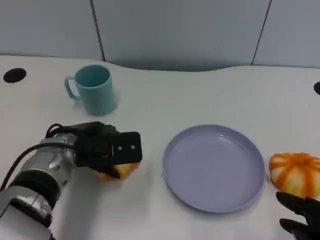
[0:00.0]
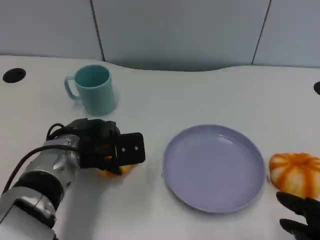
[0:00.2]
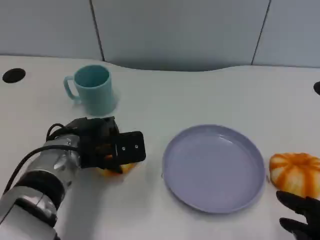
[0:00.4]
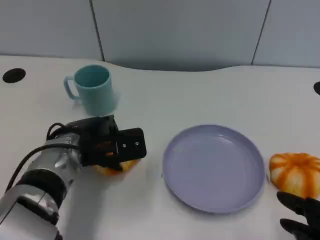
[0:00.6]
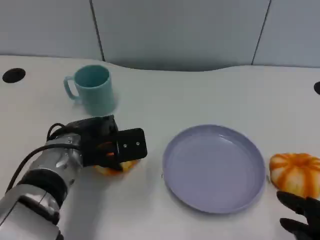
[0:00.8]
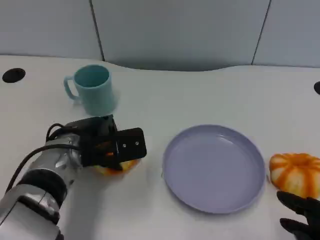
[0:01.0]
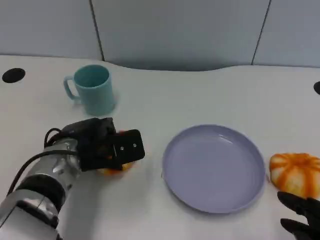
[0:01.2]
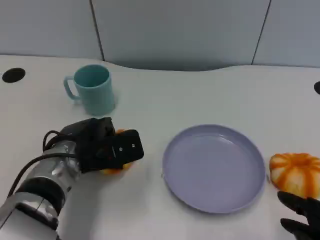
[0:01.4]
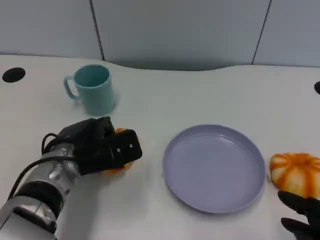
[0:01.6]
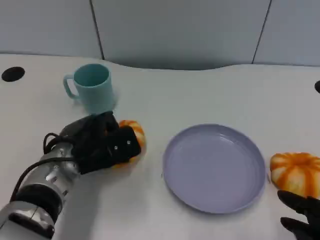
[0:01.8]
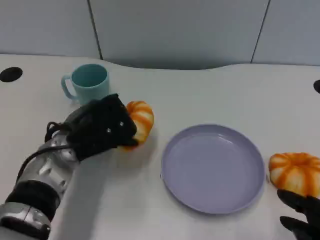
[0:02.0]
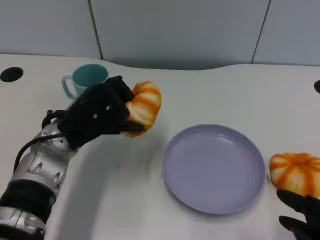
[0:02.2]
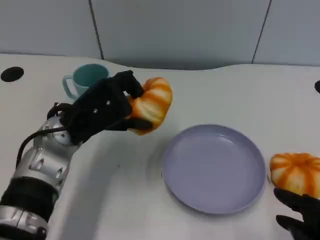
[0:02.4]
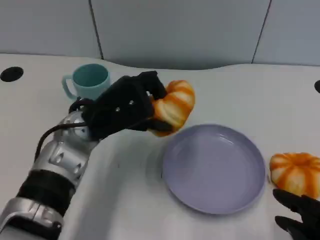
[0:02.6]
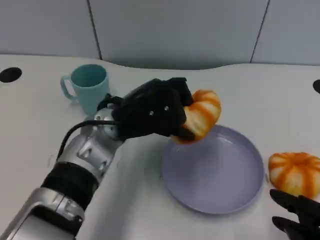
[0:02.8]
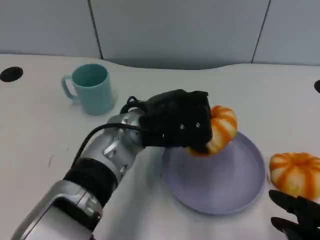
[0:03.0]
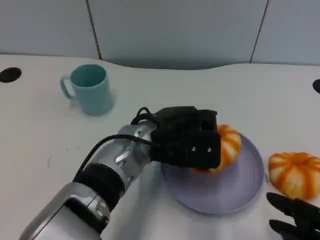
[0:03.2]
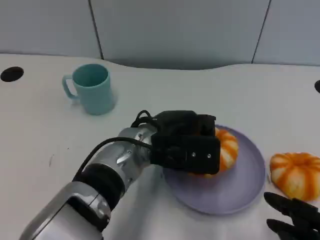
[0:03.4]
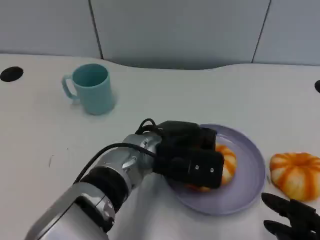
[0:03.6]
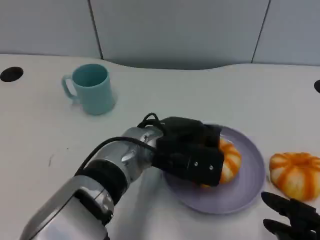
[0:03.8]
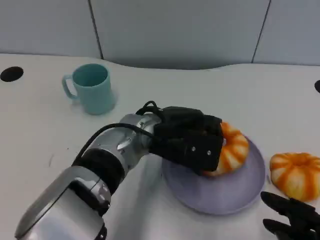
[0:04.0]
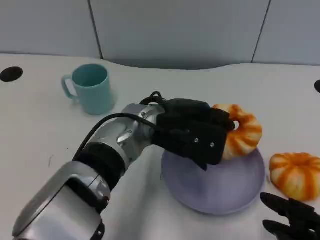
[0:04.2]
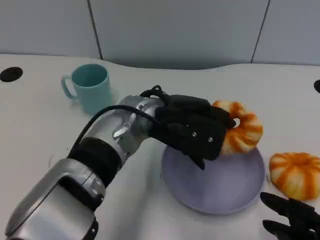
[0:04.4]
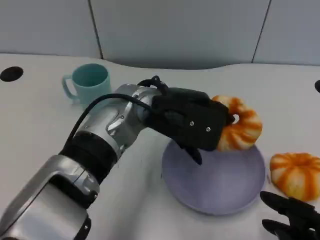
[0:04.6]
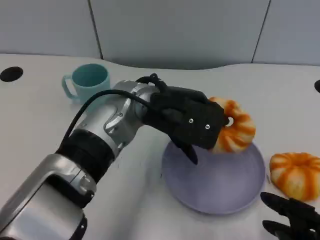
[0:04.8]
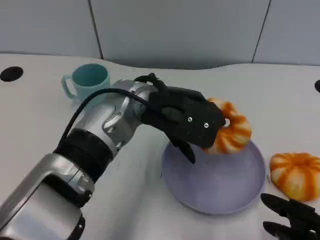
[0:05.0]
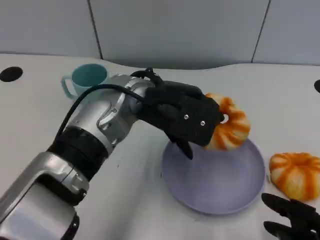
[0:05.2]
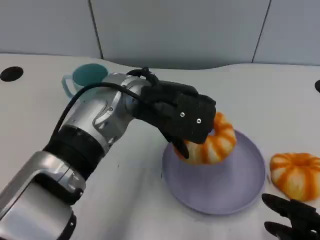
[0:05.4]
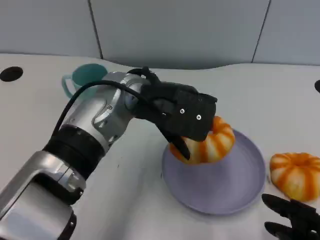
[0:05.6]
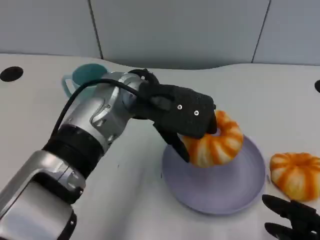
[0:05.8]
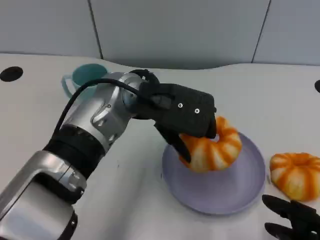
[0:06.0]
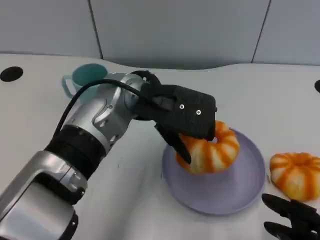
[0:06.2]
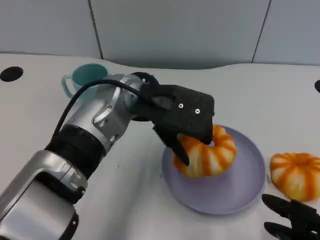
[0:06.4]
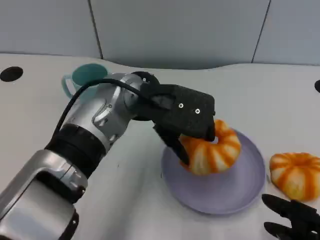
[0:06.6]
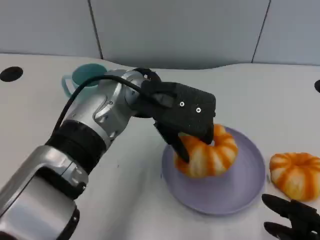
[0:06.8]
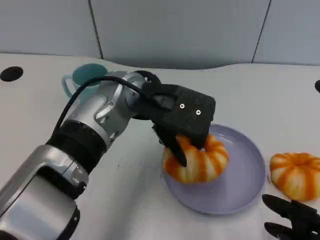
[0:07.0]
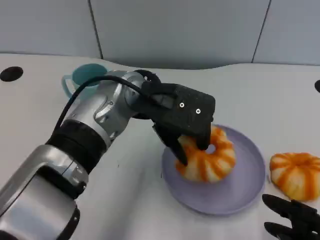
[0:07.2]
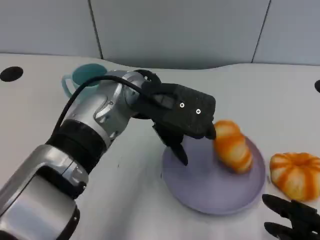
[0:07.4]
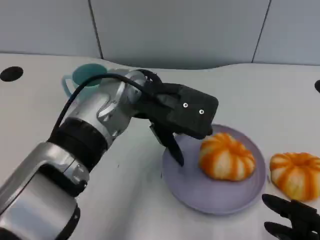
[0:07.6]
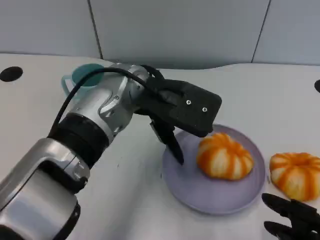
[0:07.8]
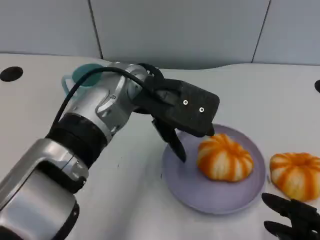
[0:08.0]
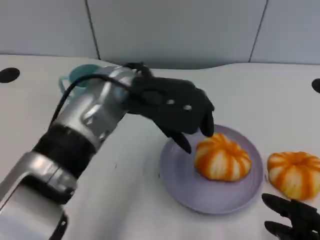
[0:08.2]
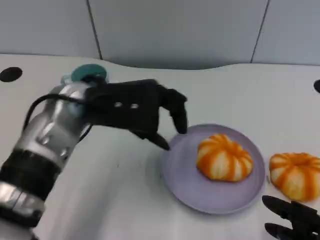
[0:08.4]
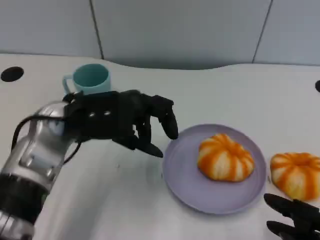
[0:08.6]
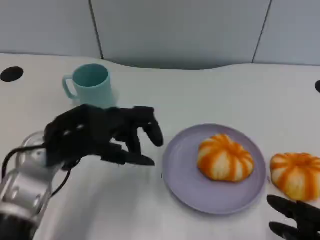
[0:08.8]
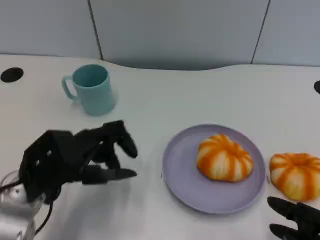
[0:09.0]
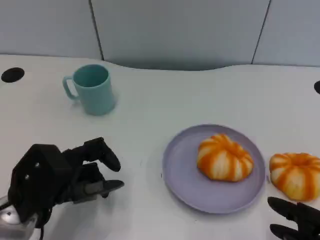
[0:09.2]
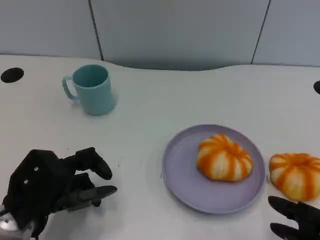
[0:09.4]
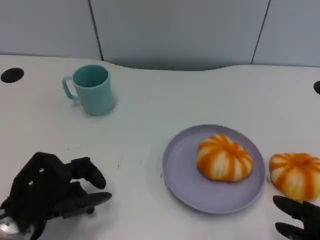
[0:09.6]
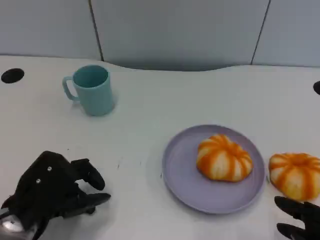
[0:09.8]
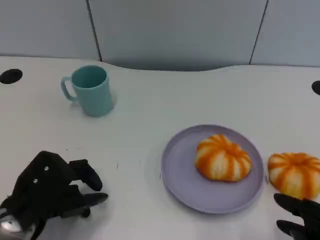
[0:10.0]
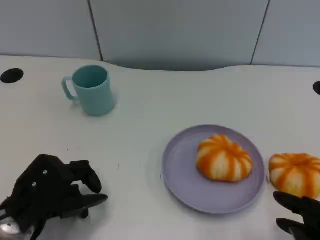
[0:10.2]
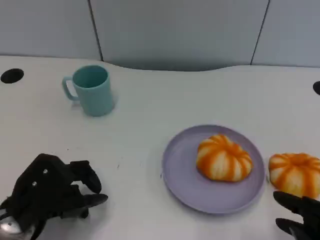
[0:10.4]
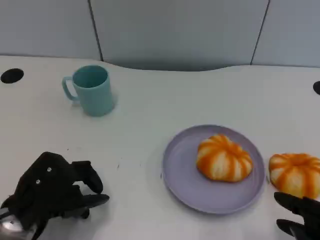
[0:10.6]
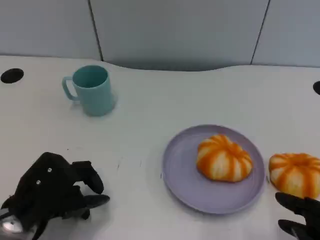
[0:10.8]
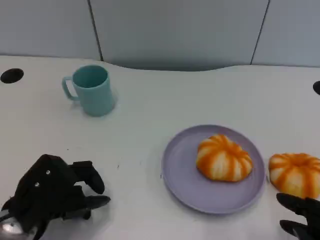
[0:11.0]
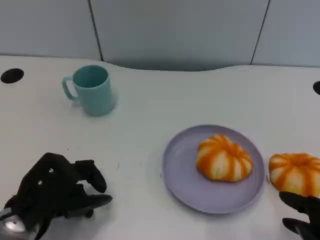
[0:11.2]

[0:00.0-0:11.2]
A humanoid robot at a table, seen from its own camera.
Task of the whole recording: Grasp the bread from the table and place it into the plate.
0.0 to 1.6 s: The hands move only a little.
1.6 to 3.2 s: The left hand travels to the right and upward by about 15 cm.
3.2 to 4.8 s: The left hand goes roughly 5 cm upward.
4.8 to 8.0 s: The hands move only a little.
8.0 to 9.6 s: The left hand shifts about 25 cm to the left, downward and backward.
9.6 to 11.2 s: The hands stay close to where they were, moving slightly.

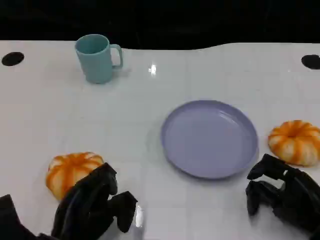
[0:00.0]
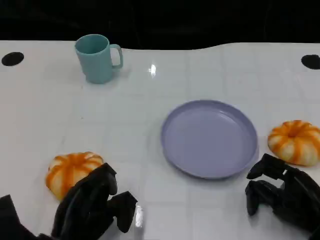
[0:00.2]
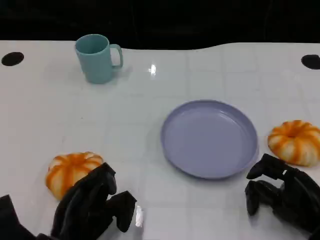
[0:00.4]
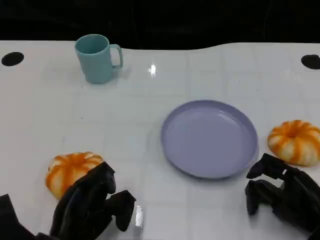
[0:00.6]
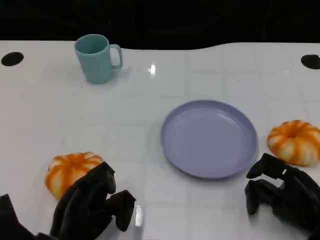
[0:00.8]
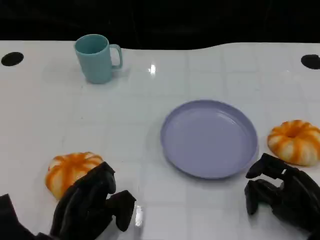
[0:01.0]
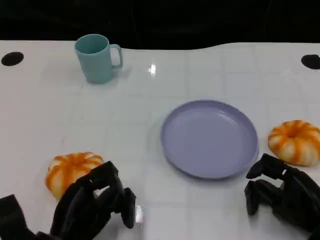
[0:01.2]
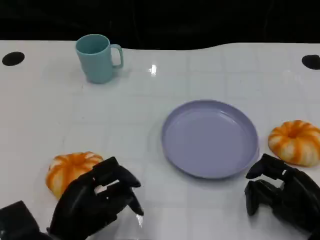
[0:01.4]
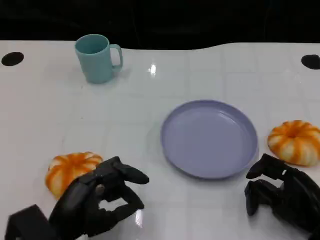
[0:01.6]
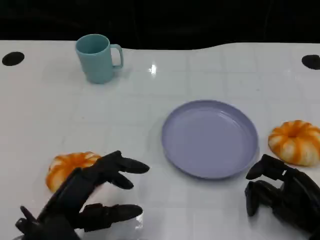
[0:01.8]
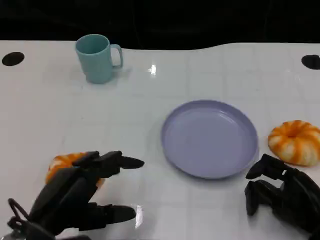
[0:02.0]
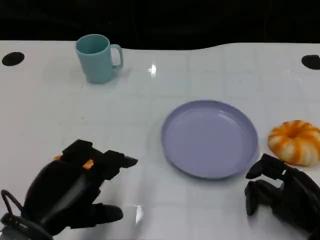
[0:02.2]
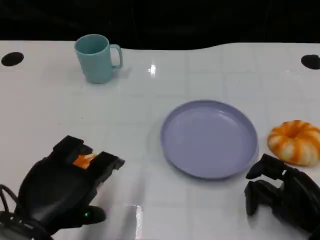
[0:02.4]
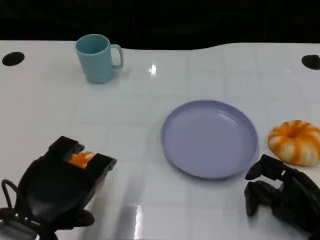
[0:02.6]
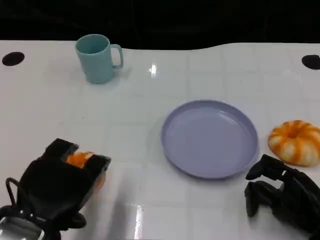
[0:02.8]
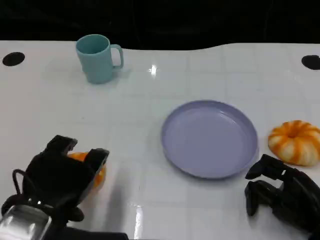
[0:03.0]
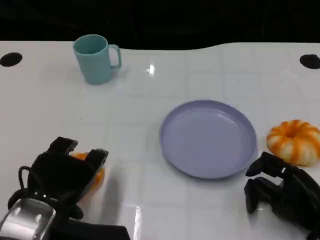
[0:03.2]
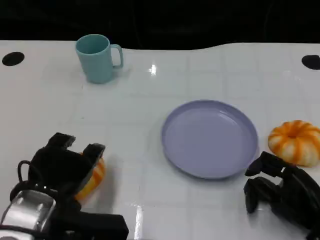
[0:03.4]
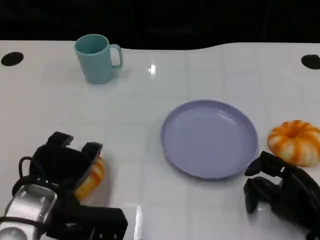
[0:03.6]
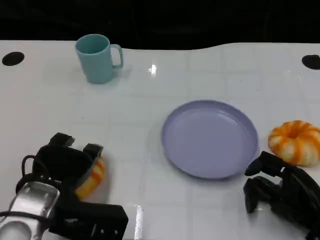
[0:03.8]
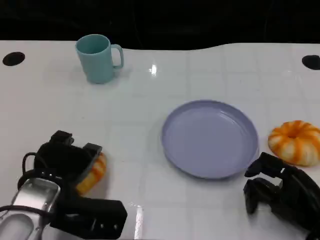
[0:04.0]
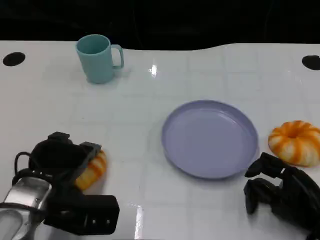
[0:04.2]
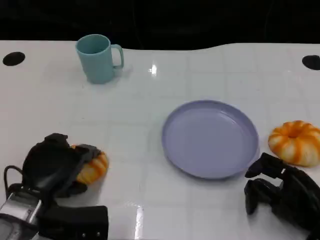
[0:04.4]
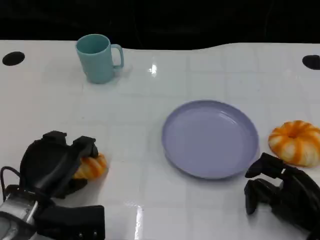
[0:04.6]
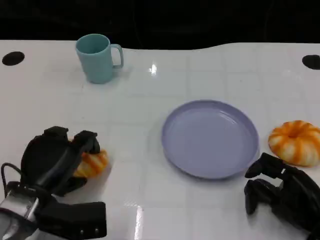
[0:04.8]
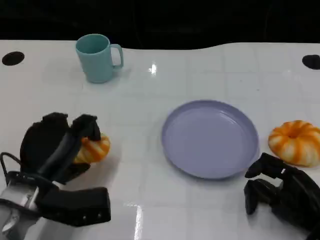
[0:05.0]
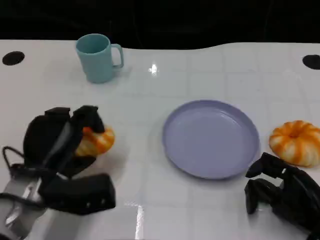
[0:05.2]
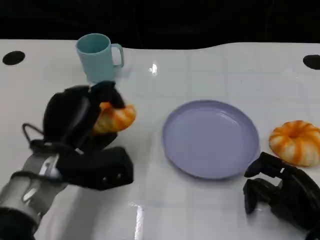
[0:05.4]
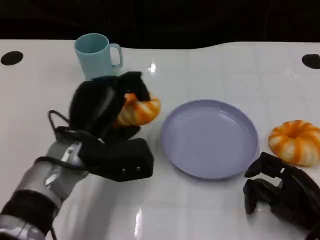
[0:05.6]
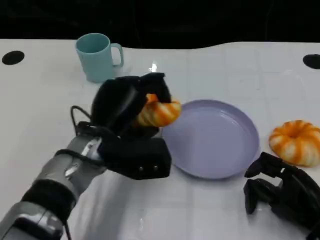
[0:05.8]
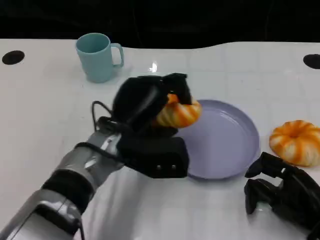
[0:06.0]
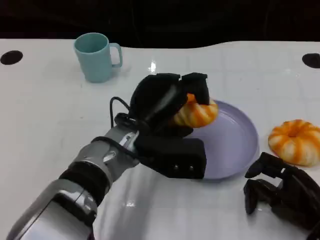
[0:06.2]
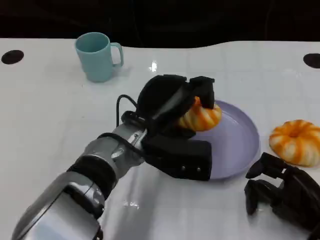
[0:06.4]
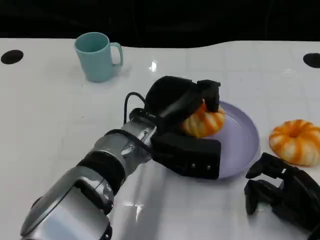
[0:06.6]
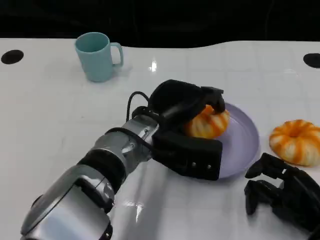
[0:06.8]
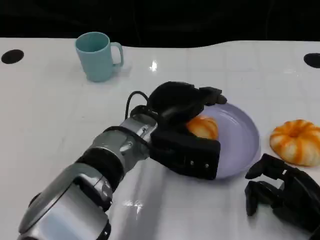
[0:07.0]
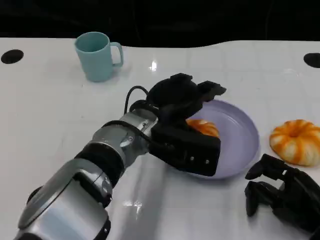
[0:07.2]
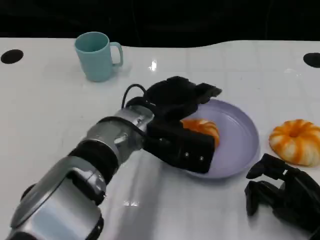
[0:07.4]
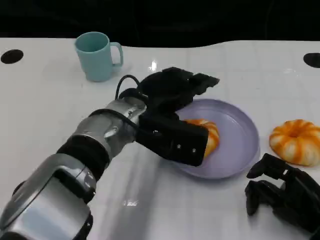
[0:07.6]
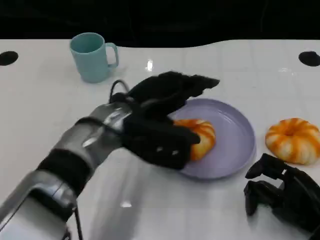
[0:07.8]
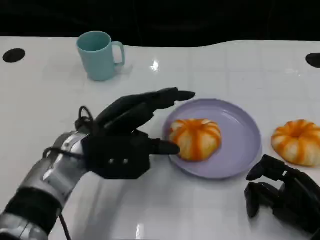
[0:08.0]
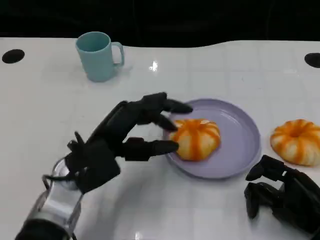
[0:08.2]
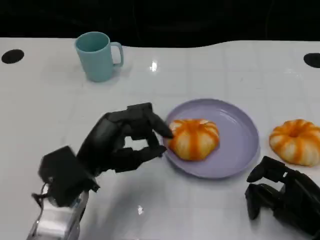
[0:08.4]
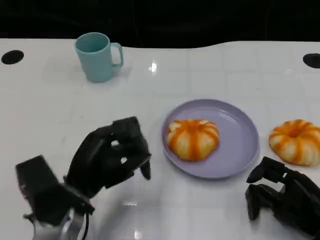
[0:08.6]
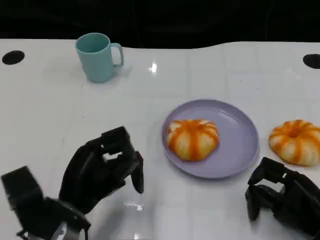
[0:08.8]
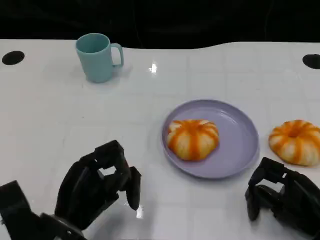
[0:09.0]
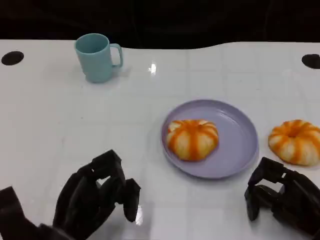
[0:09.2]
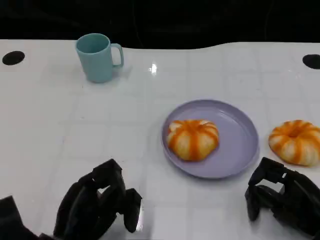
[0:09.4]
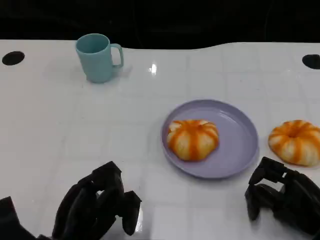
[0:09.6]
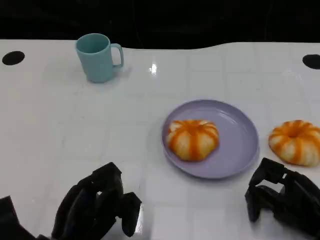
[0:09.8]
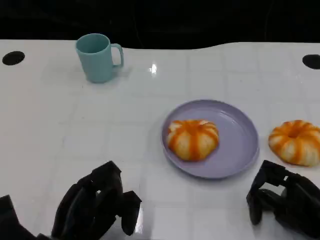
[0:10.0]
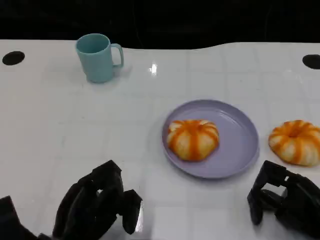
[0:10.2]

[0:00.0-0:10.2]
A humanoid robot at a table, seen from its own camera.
Task of the whole recording: Grasp the bread from the table and place it into the plate.
1.4 to 3.0 s: The left hand shifts about 10 cm upward.
3.0 to 4.4 s: The left hand is displaced downward and forward by some 10 cm.
4.4 to 5.8 s: The left hand shifts approximately 15 cm to the right, upward and forward.
5.8 to 7.2 s: The left hand heads to the right, covering some 5 cm.
7.2 to 8.8 s: The left hand travels to the left, backward and downward by approximately 20 cm.
8.8 to 10.2 s: The hands stay close to where they were, moving slightly.

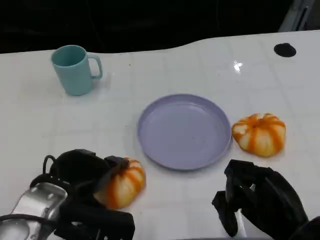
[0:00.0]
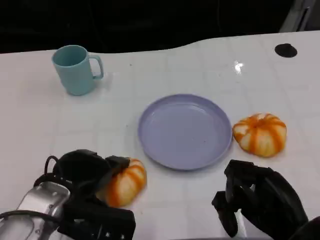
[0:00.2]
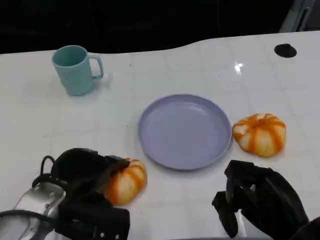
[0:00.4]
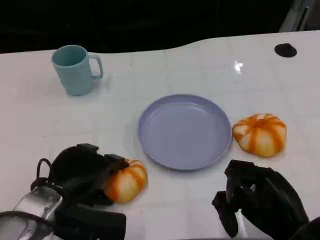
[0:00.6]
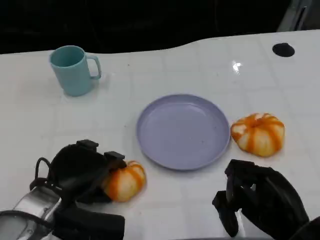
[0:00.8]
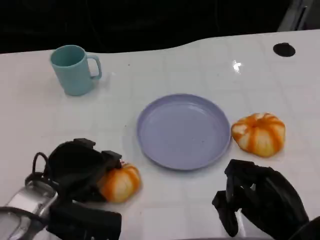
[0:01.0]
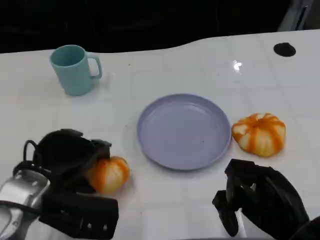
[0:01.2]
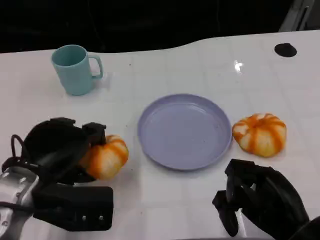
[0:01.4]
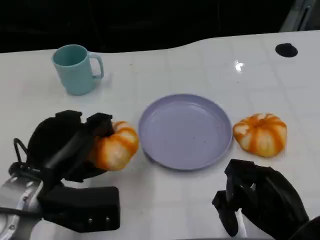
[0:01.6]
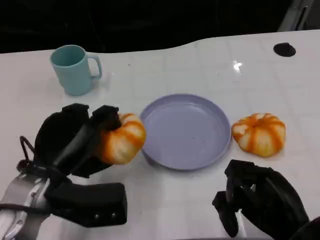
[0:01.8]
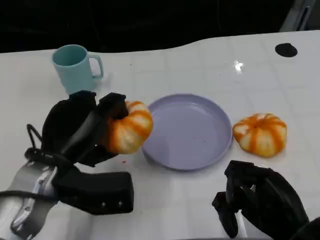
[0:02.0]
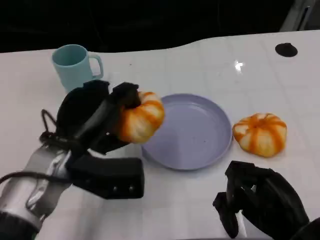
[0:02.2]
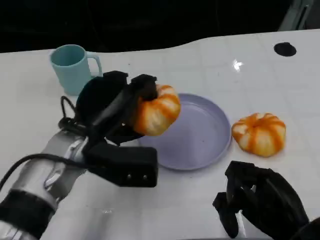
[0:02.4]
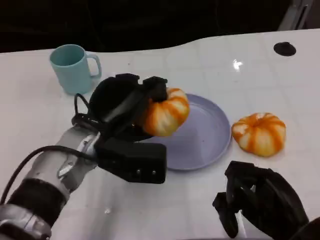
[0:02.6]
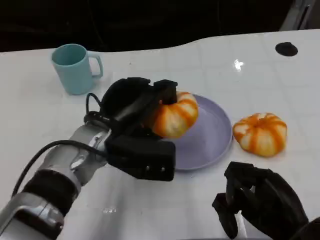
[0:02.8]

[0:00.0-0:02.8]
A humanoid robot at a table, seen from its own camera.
Task of the whole recording: Grasp the bread from the table and place it into the plate.
1.4 to 2.8 s: The left hand moves to the right and forward, about 15 cm.
